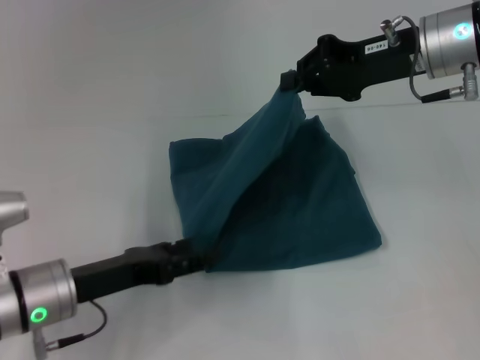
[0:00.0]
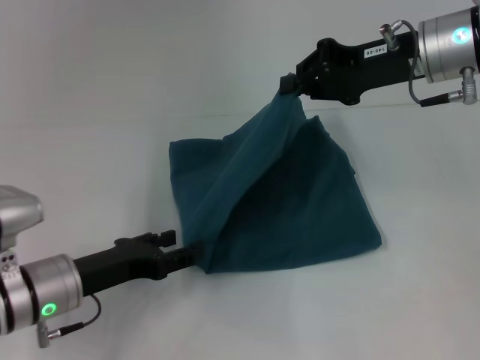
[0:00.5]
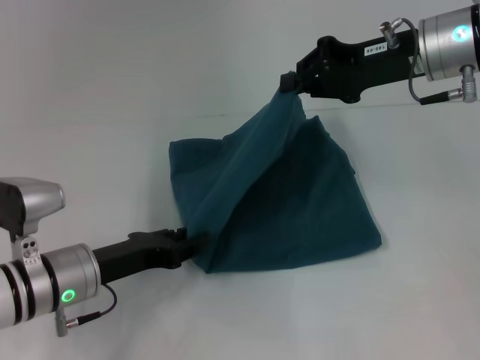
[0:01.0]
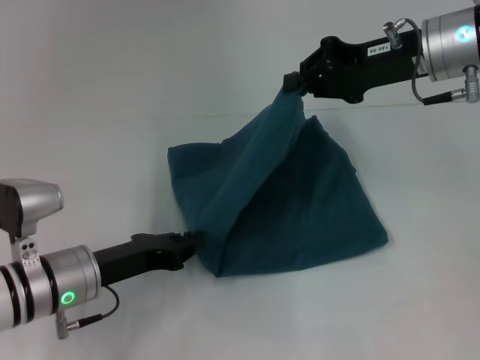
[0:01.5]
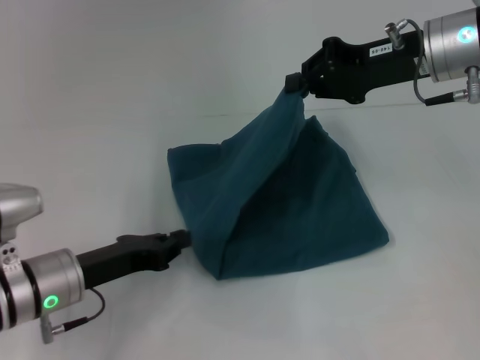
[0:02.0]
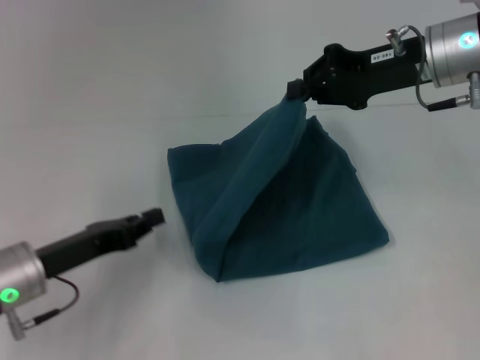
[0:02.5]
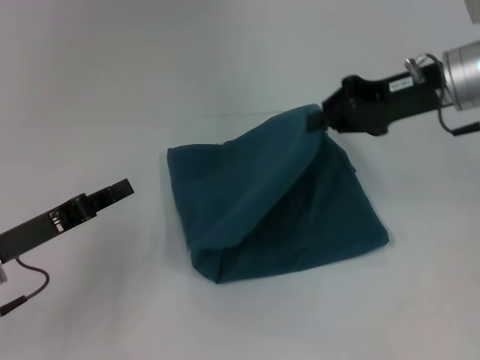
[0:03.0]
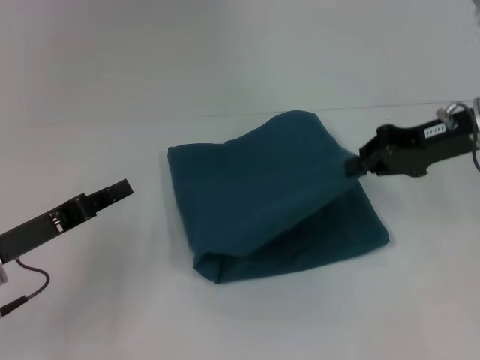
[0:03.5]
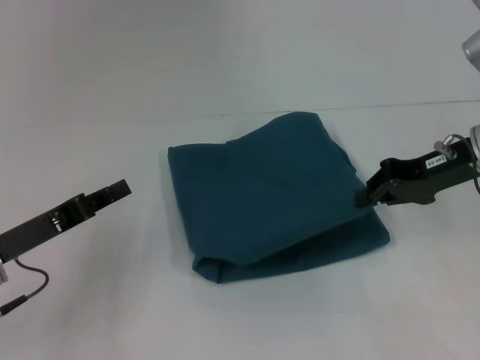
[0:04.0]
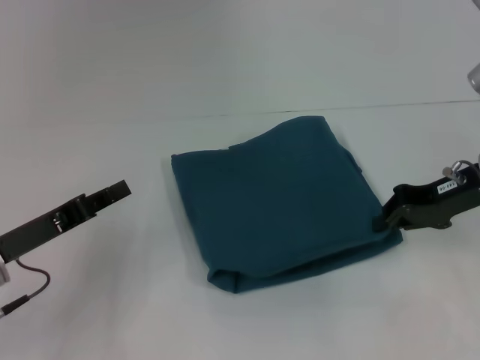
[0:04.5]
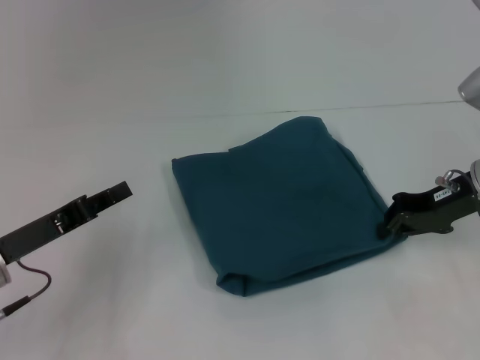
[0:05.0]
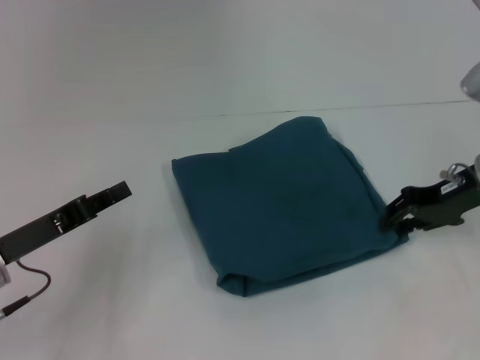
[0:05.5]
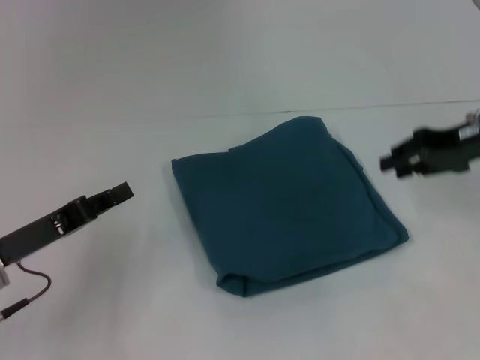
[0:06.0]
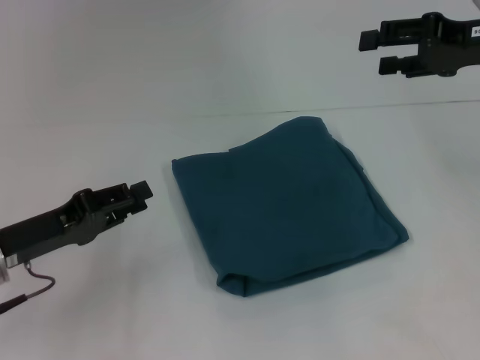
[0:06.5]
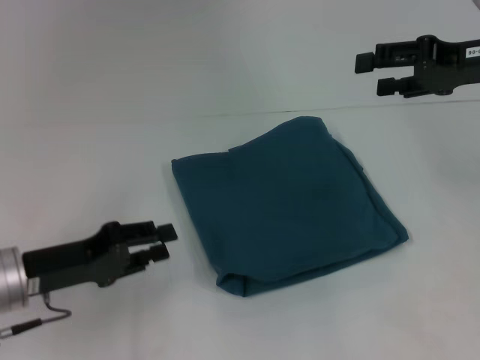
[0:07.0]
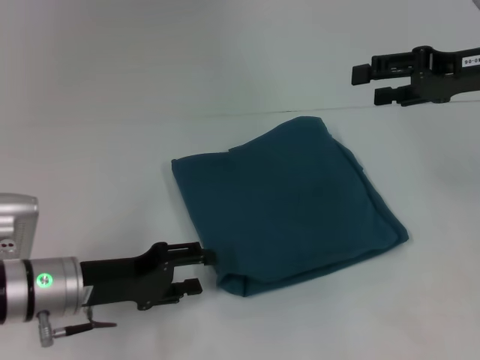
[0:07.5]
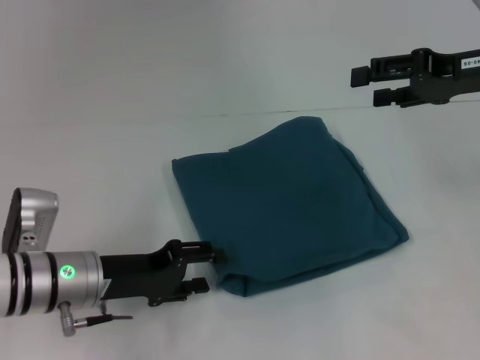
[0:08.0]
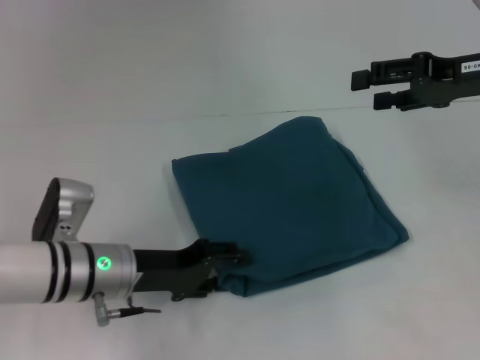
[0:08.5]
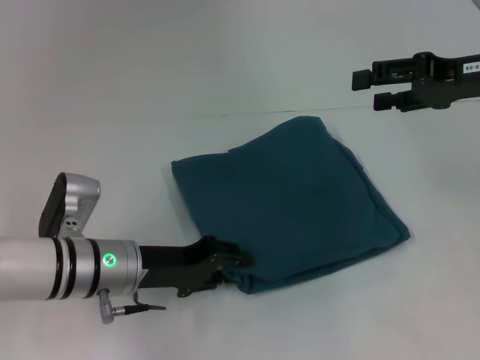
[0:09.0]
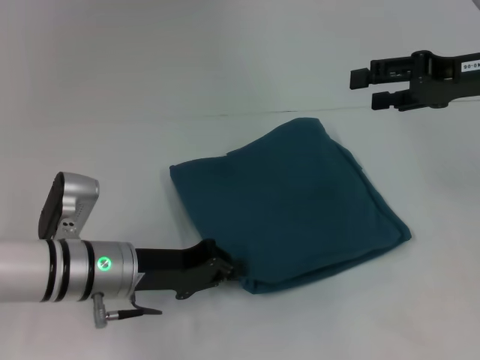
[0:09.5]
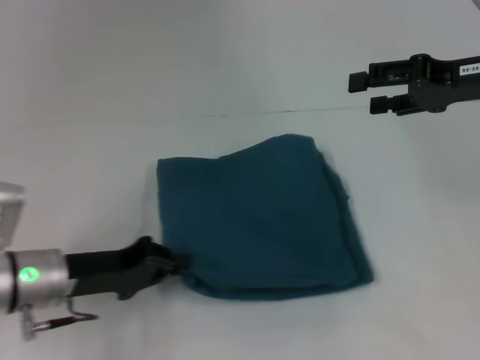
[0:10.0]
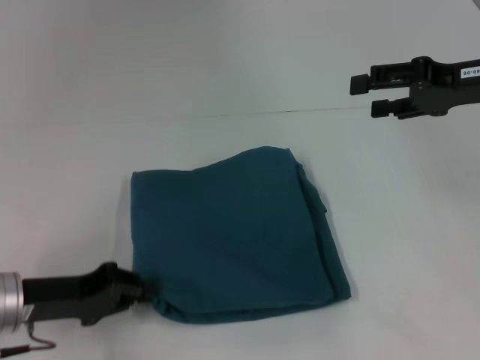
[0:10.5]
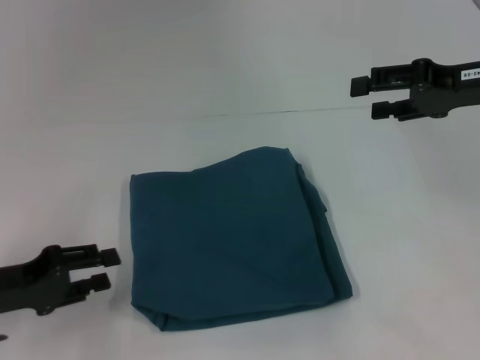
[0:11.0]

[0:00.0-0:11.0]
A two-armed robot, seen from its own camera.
0:00.0 to 0:02.0: The left gripper closes its fingers.
0:02.0 to 0:03.5: The right gripper moves to the right, some 5 cm. Meanwhile the left gripper moves to the left, some 5 cm.
0:03.5 to 0:05.5: The right gripper is displaced downward by about 5 cm, and opens its fingers.
0:05.5 to 0:07.5: The right gripper is displaced upward by roughly 10 cm, and opens up. Meanwhile the left gripper is displaced to the right by some 5 cm, and opens up.
0:07.5 to 0:09.0: The left gripper shifts about 5 cm to the right.
0:09.0 to 0:11.0: The left gripper shifts approximately 15 cm to the left, and closes its fingers.

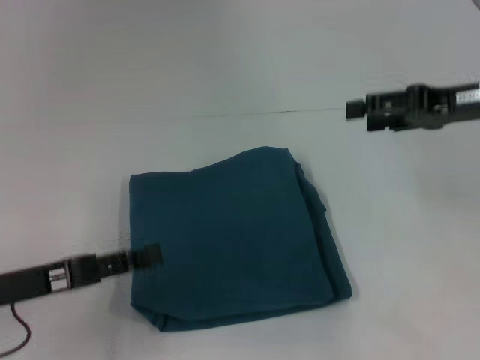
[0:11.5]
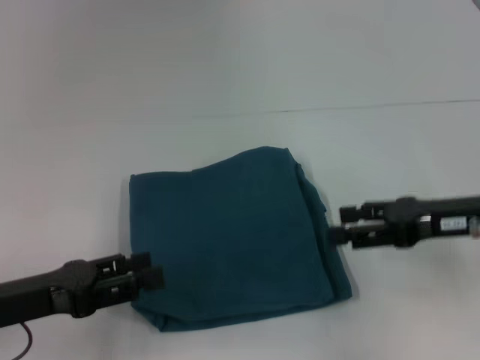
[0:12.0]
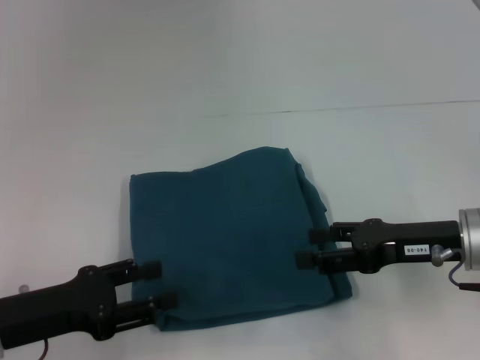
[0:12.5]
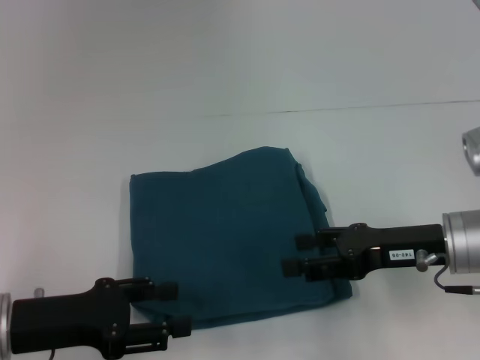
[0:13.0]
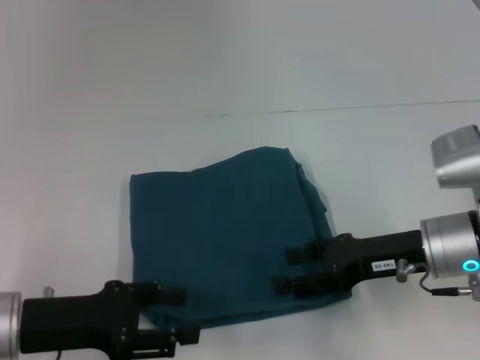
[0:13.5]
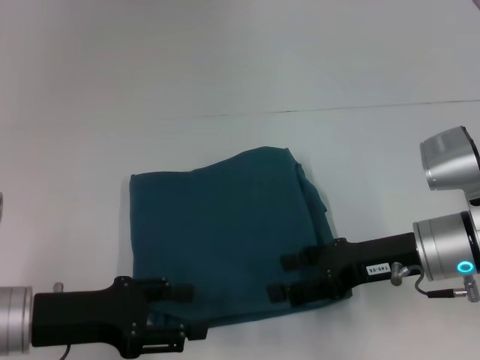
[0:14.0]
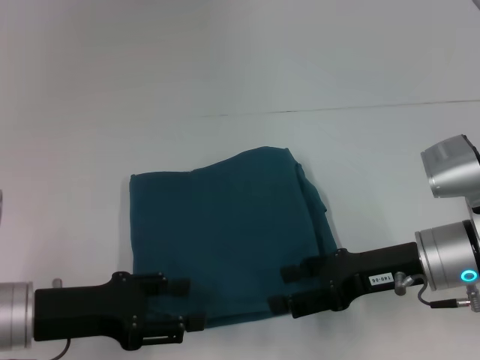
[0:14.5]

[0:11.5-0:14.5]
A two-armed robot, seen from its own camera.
0:11.5 to 0:13.0: The right gripper travels downward, backward and to the left by some 15 cm.
0:13.0 to 0:14.5: The grippers move only a little.

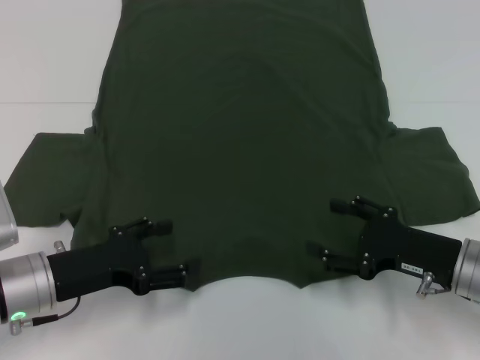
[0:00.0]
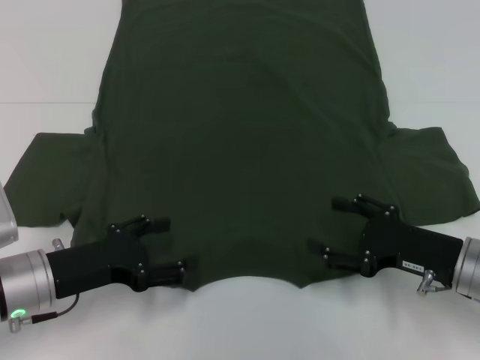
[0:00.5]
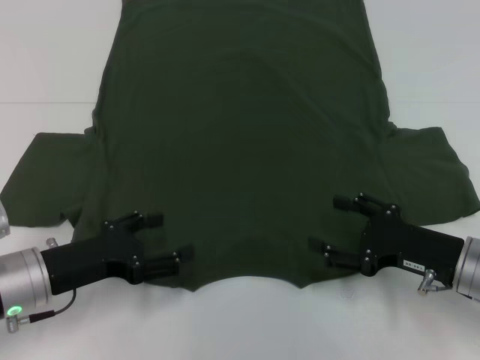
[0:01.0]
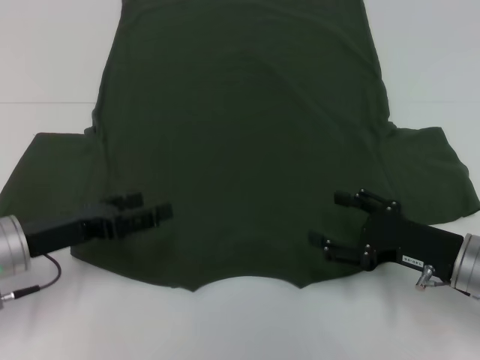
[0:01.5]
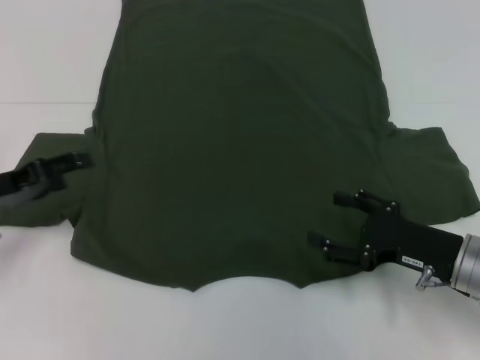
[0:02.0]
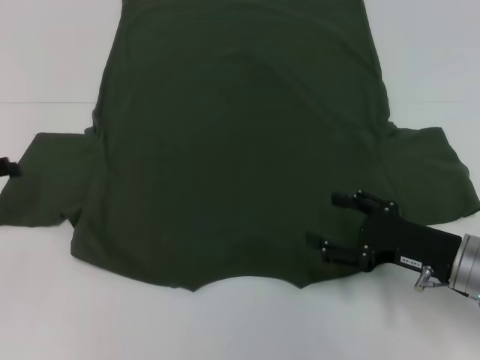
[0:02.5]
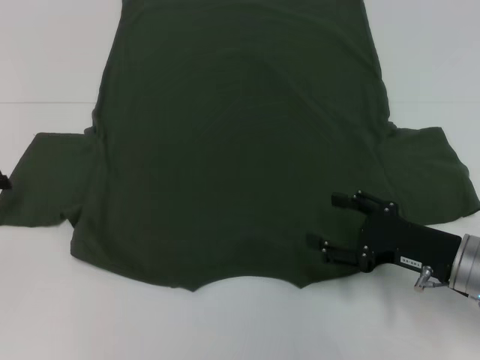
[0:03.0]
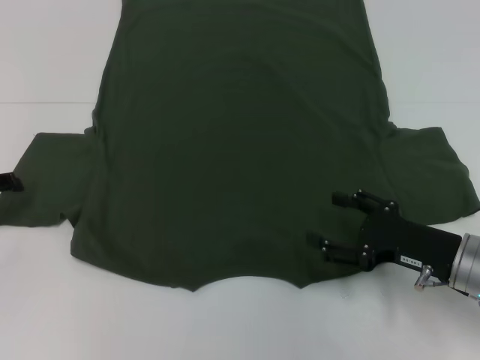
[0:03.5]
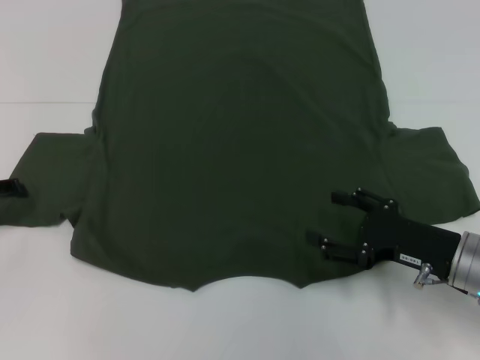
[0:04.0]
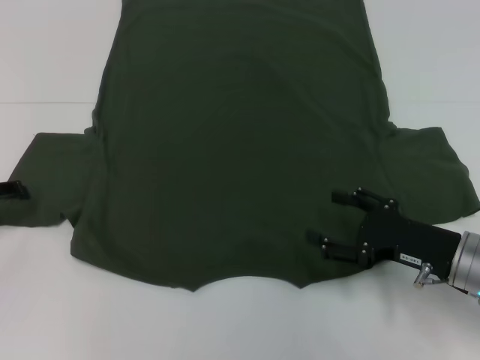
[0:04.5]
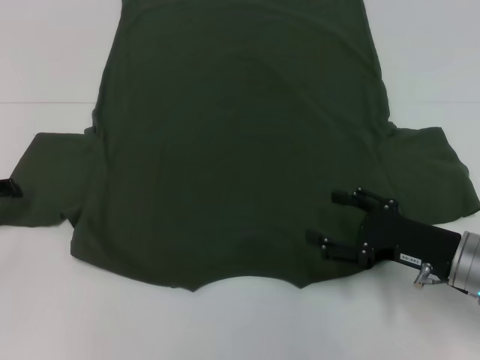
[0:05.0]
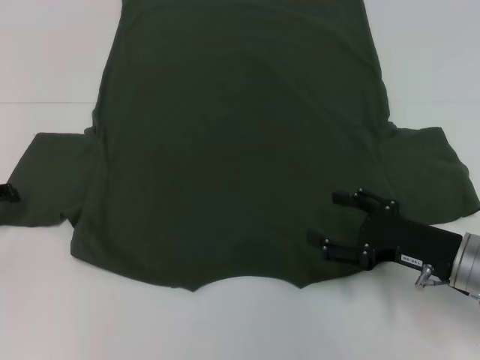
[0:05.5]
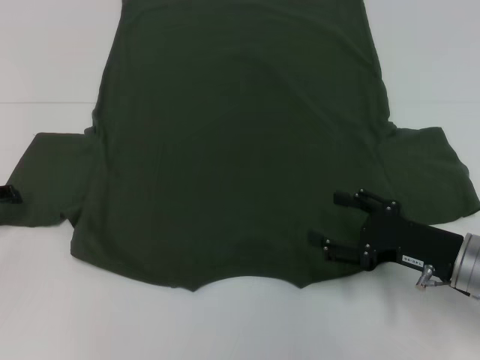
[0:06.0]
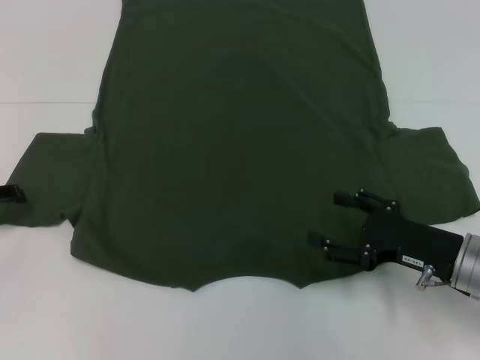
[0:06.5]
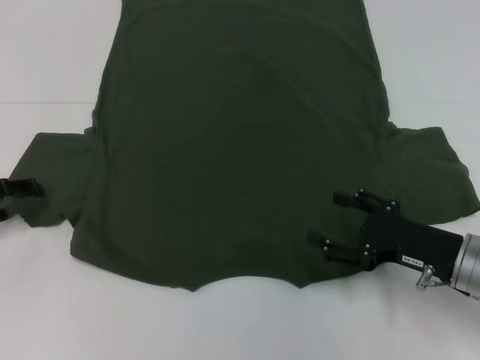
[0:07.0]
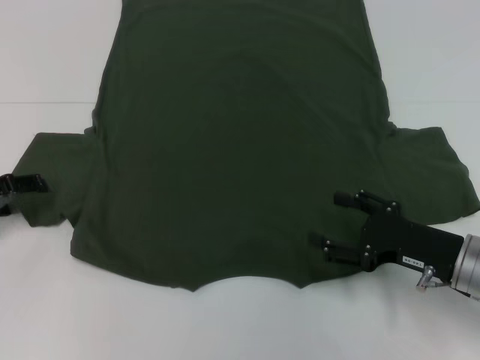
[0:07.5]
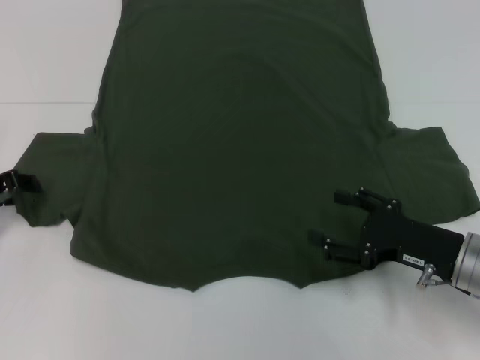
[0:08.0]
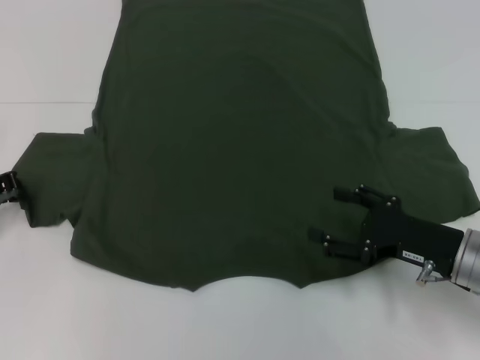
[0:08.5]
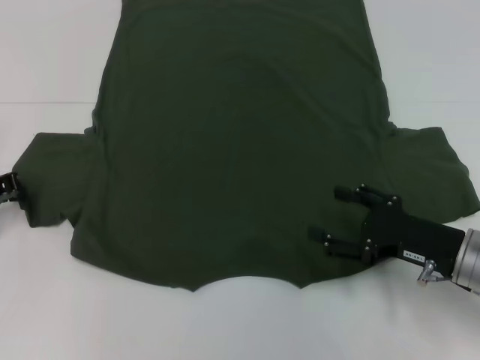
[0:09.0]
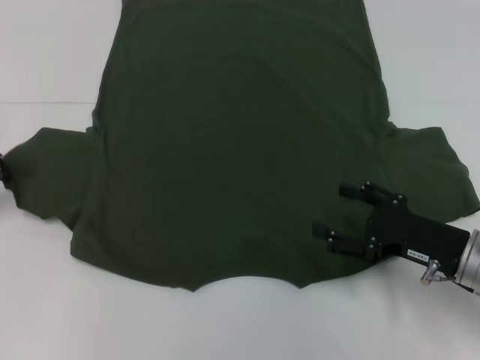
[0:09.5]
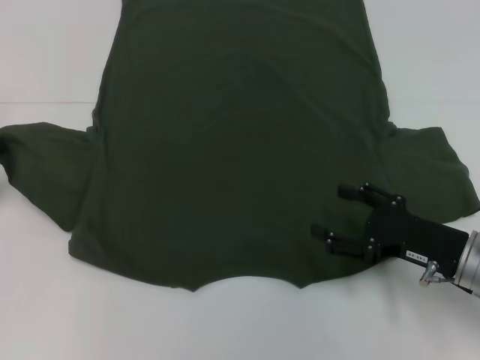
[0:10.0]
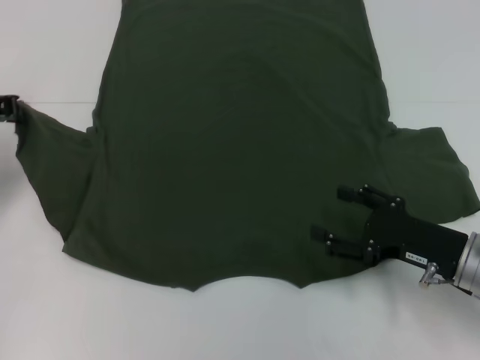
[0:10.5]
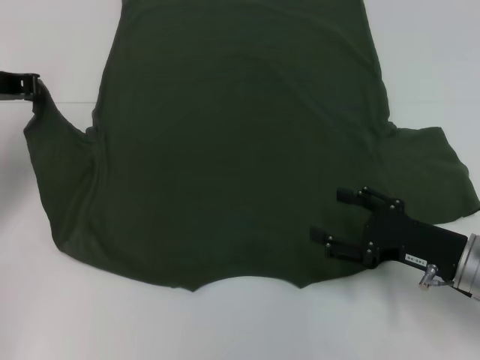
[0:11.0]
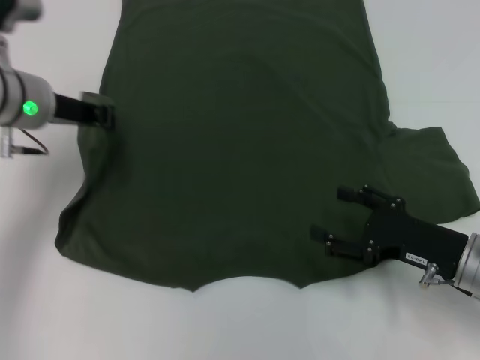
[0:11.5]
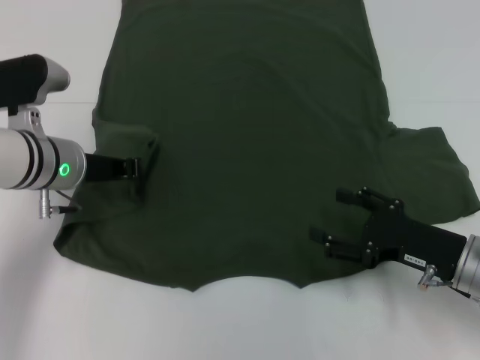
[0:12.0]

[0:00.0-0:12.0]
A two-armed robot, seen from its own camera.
0:00.0 to 0:02.0: The left gripper goes approximately 10 cm to the left and forward.
0:04.0 to 0:06.0: The two grippers keep their place.
0:06.0 to 0:08.0: The grippers stay close to where they were, moving slightly.
0:08.0 to 0:10.0: The left gripper is displaced upward by some 5 cm, and closes its fingers.
0:10.0 to 0:12.0: The left gripper shifts roughly 15 cm to the right.
